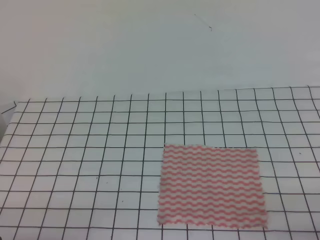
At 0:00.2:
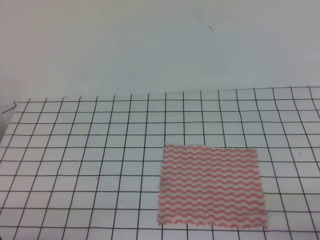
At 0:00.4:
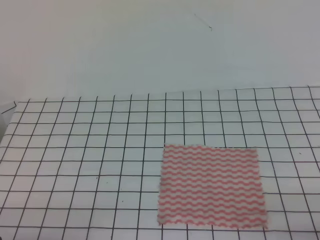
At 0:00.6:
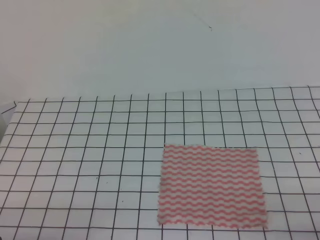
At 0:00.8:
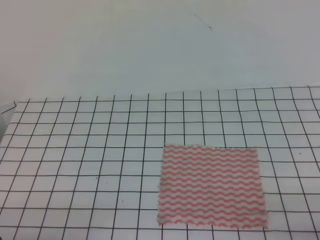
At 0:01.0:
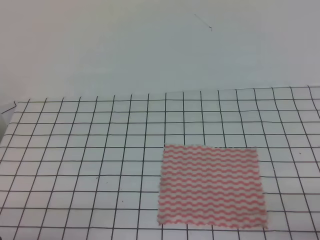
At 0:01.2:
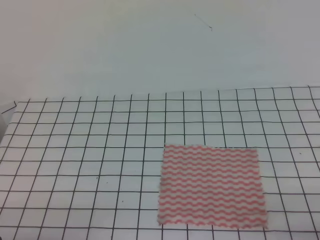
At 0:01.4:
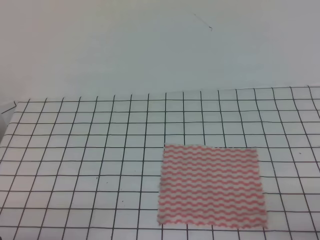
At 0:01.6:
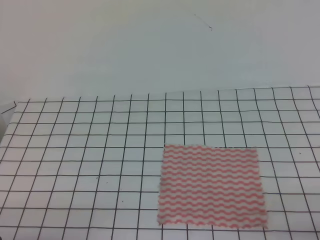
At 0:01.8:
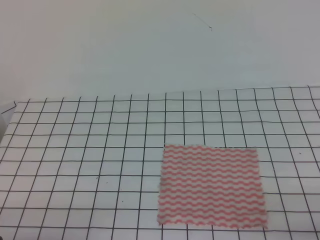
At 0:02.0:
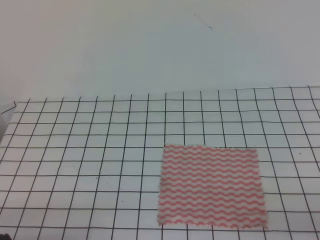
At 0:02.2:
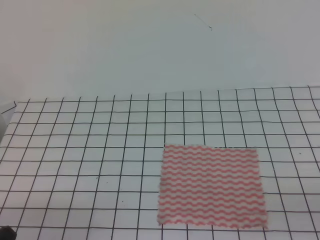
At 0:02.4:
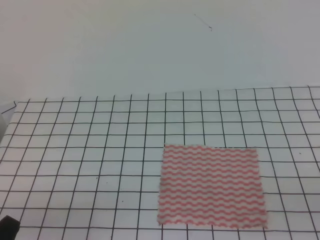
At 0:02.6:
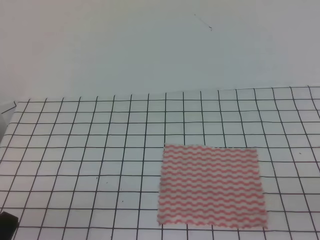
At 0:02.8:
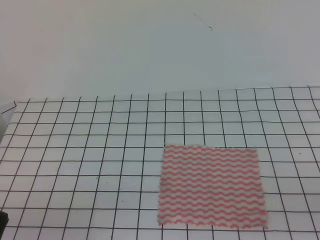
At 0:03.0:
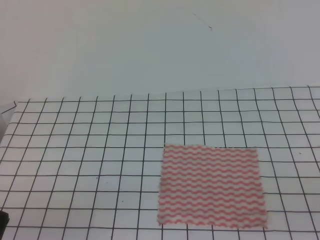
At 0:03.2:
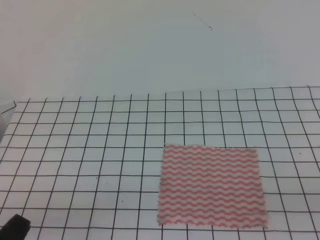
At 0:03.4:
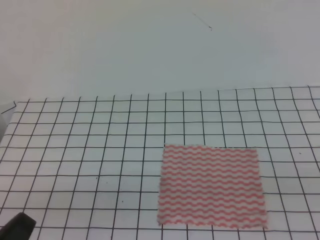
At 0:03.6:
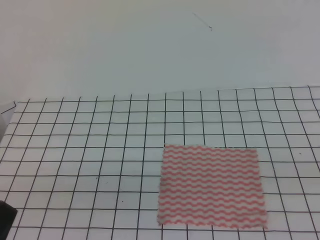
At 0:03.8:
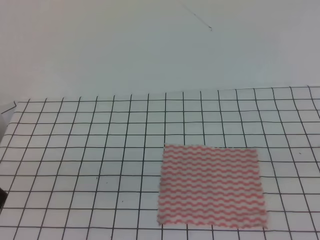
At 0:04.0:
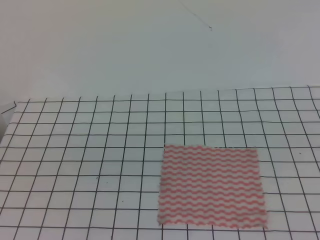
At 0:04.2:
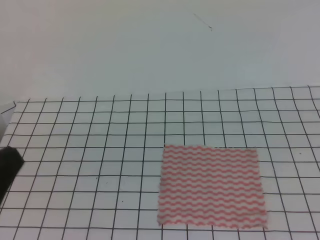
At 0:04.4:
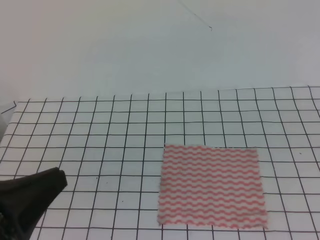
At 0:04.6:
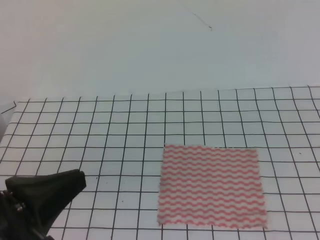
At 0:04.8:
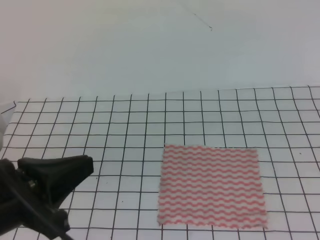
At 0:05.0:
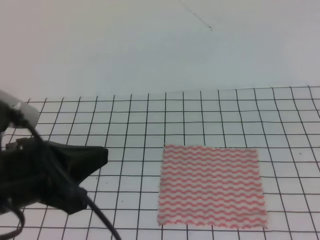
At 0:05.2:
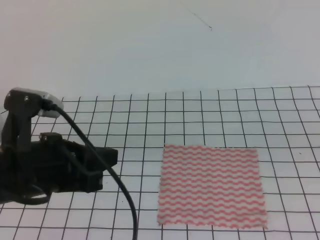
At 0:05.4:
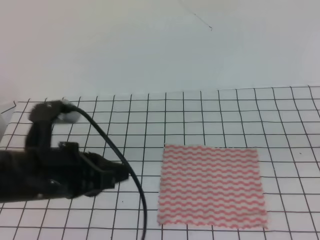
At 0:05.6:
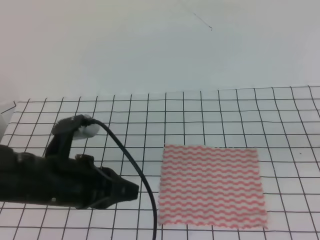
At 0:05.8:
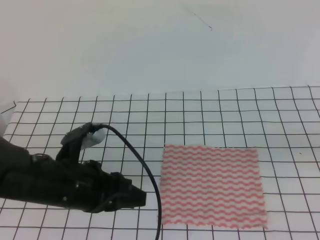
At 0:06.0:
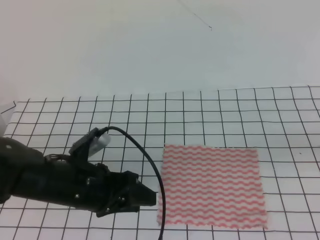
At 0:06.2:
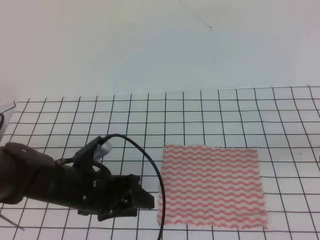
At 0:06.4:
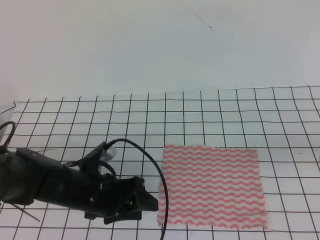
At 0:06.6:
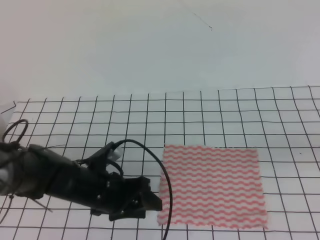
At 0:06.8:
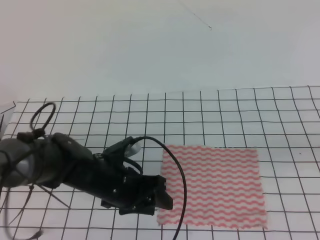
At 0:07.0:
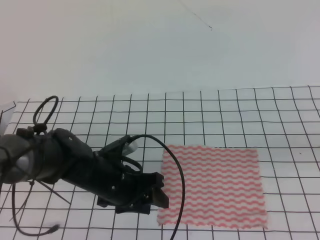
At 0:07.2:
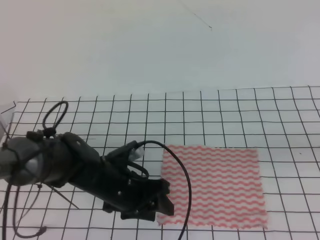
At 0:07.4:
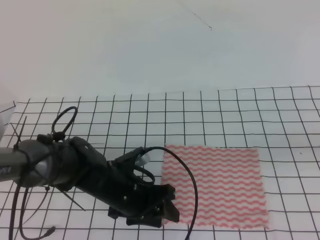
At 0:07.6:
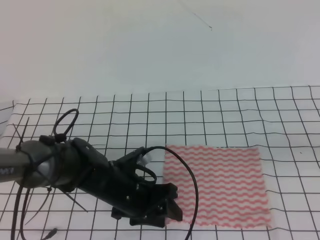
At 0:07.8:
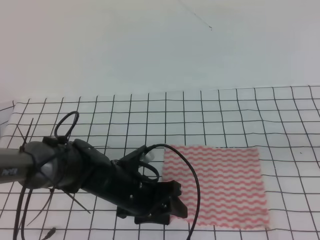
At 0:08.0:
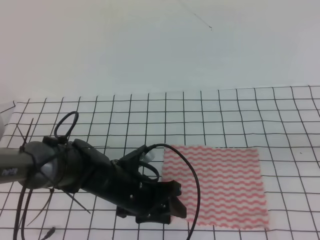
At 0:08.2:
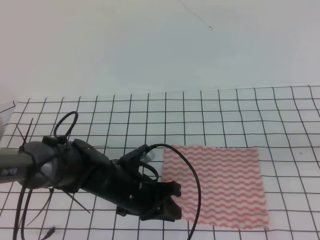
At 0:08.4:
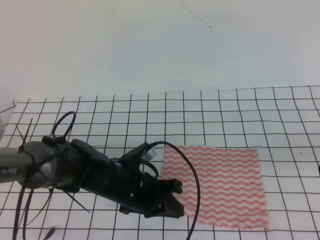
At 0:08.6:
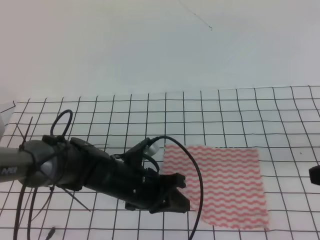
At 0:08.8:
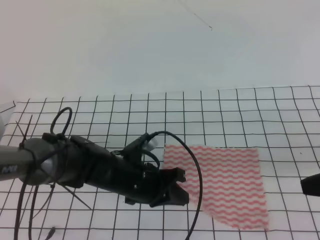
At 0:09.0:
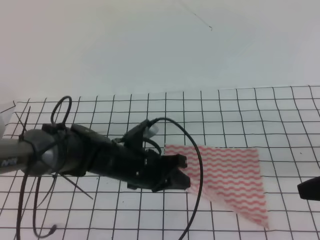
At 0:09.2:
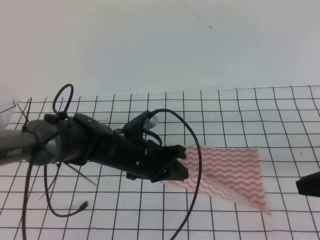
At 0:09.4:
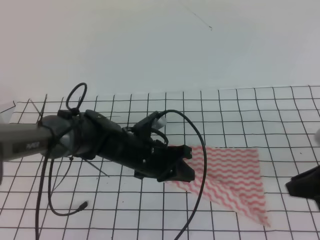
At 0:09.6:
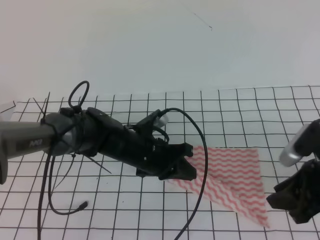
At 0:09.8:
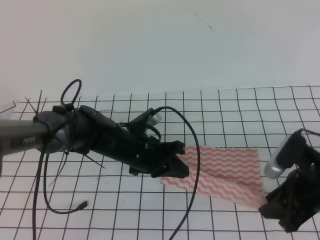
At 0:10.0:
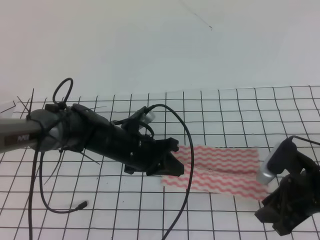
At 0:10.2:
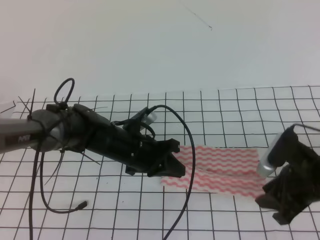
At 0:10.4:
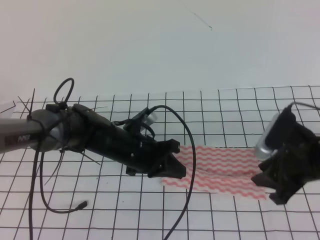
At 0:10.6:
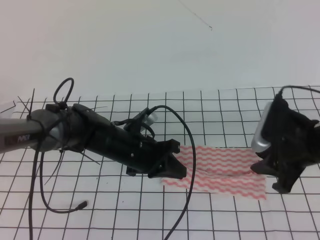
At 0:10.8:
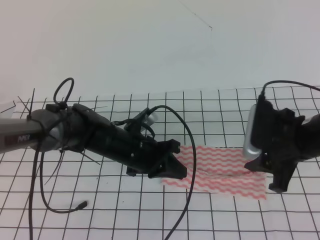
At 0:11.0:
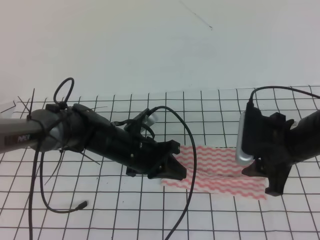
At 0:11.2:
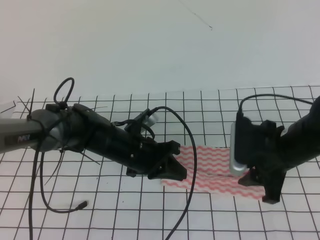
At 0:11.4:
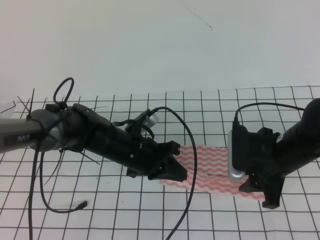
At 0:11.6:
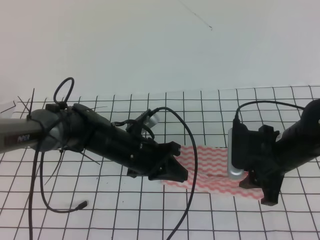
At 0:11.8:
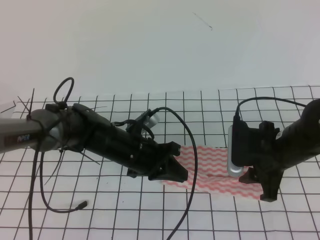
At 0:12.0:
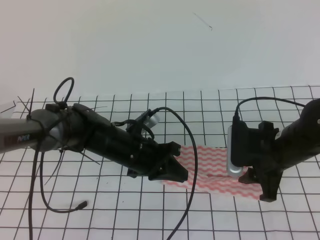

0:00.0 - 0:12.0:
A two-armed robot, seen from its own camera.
0:00.0 - 0:01.6: The two grippers keep their place.
0:03.0 - 0:04.4: The left gripper is displaced upward by approximately 10 cm.
0:04.4 - 0:06.0: The left gripper travels forward, downward and to the right by about 20 cm, and opens up. The right gripper is displaced forward and downward by some 10 cm.
0:06.0 - 0:07.6: The left gripper travels downward and to the right by roughly 10 cm.
0:07.6 - 0:09.0: The left gripper closes up. Meanwhile the right gripper heads downward, covering about 5 cm.
0:09.0 - 0:10.4: The right gripper travels forward, downward and to the left by approximately 10 cm, and opens.
0:10.4 - 0:12.0: The right gripper moves approximately 5 cm.

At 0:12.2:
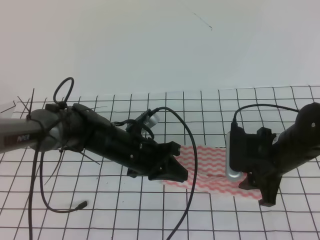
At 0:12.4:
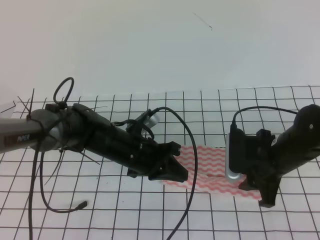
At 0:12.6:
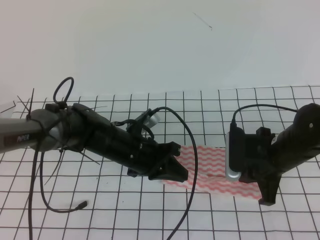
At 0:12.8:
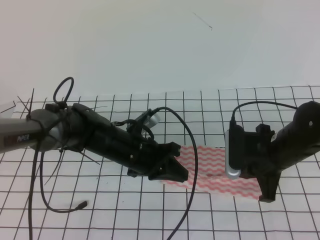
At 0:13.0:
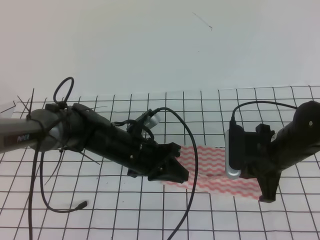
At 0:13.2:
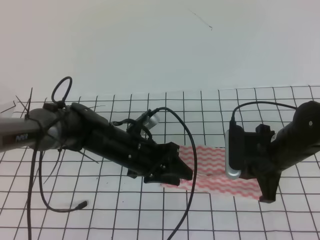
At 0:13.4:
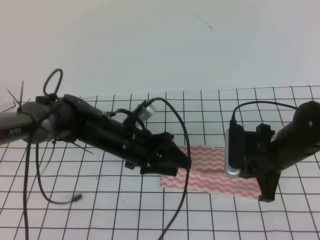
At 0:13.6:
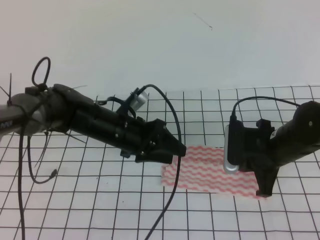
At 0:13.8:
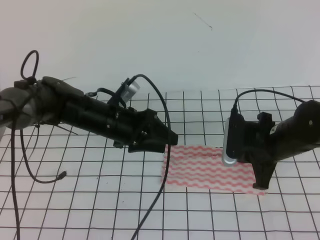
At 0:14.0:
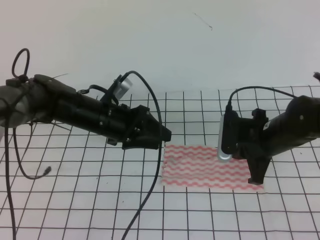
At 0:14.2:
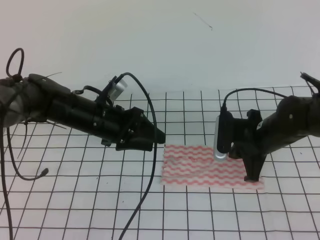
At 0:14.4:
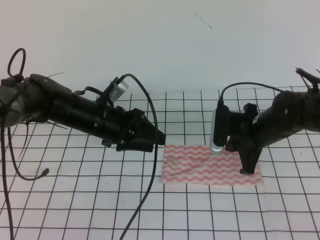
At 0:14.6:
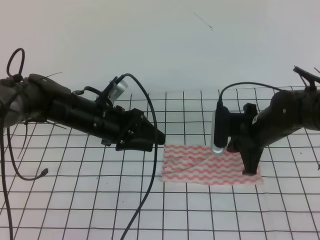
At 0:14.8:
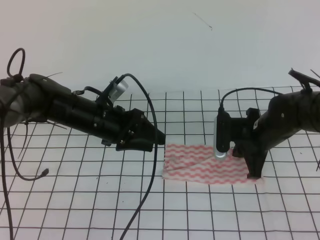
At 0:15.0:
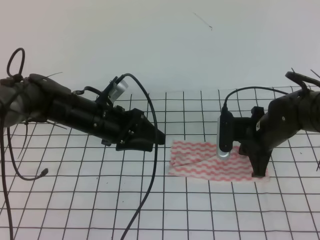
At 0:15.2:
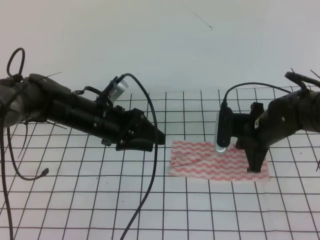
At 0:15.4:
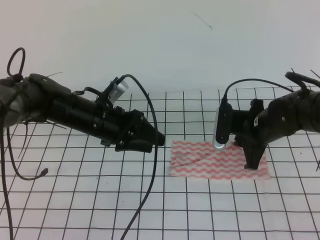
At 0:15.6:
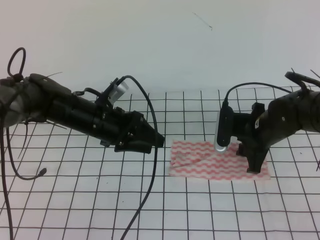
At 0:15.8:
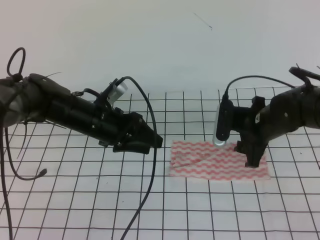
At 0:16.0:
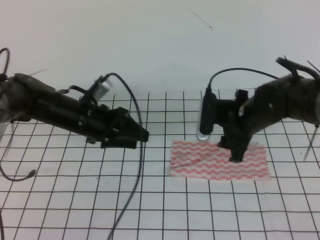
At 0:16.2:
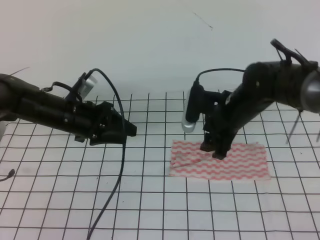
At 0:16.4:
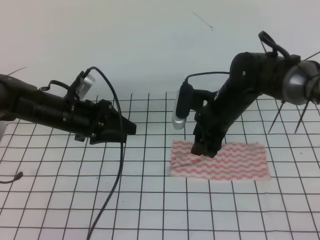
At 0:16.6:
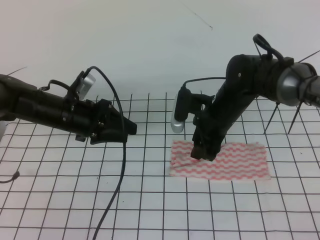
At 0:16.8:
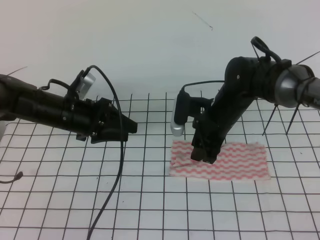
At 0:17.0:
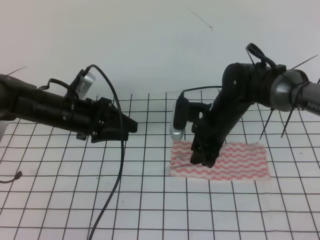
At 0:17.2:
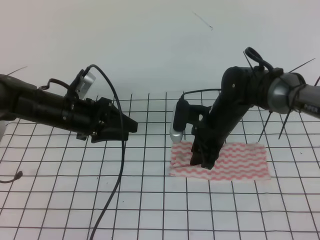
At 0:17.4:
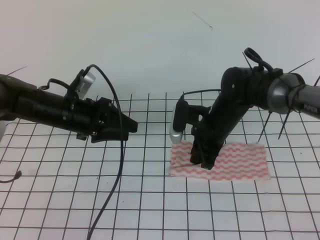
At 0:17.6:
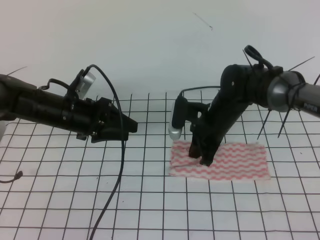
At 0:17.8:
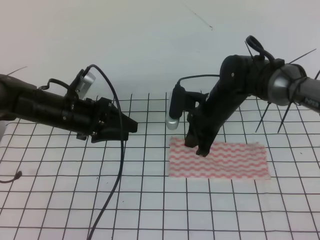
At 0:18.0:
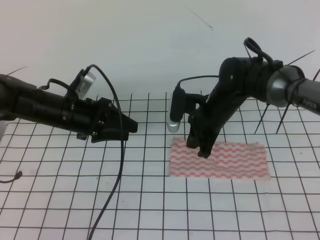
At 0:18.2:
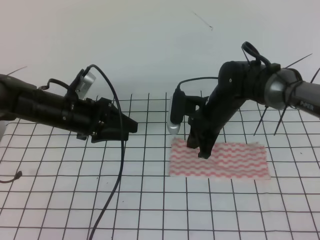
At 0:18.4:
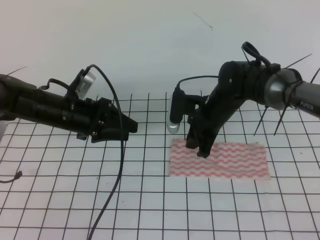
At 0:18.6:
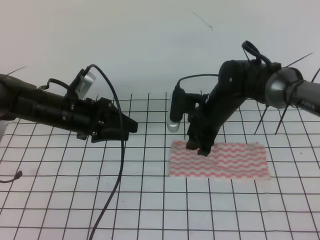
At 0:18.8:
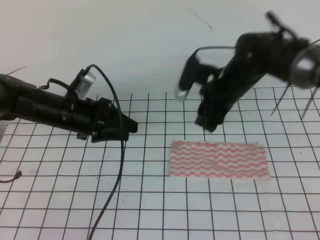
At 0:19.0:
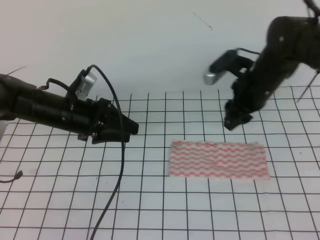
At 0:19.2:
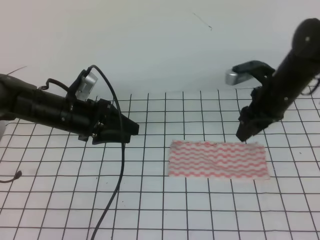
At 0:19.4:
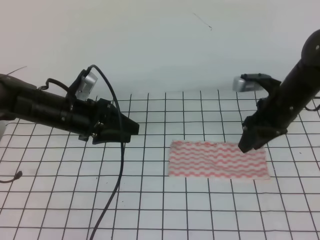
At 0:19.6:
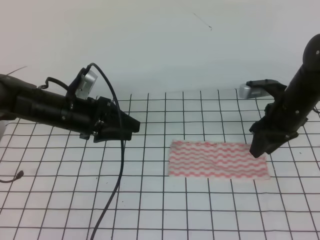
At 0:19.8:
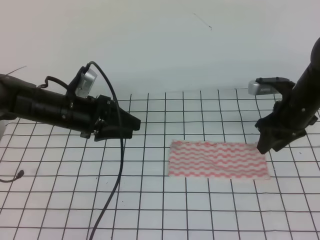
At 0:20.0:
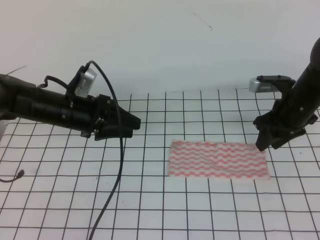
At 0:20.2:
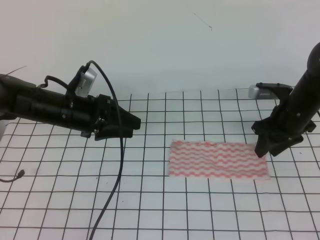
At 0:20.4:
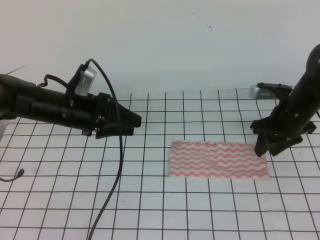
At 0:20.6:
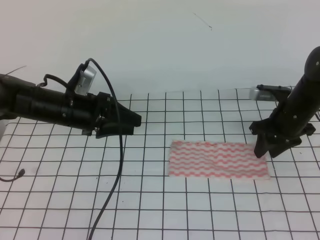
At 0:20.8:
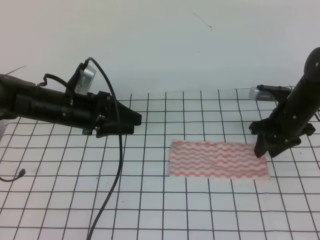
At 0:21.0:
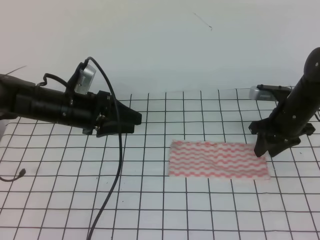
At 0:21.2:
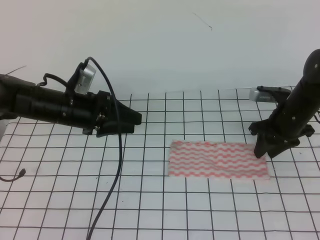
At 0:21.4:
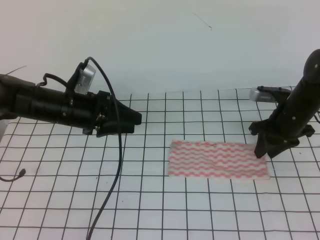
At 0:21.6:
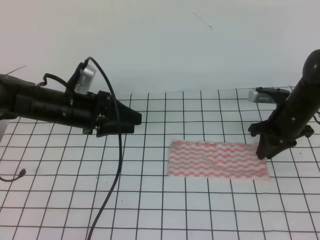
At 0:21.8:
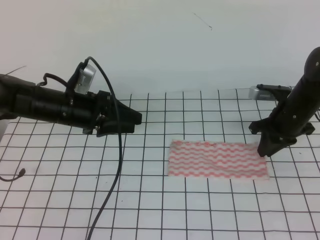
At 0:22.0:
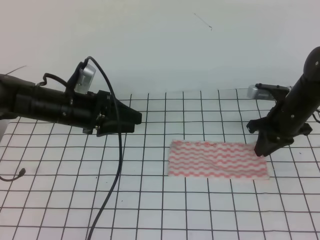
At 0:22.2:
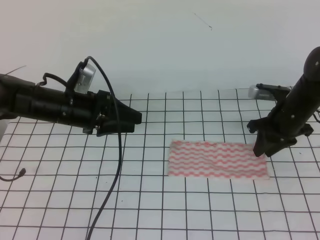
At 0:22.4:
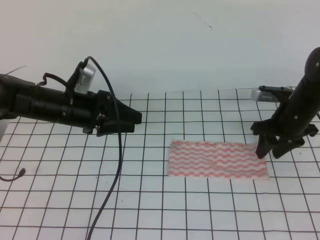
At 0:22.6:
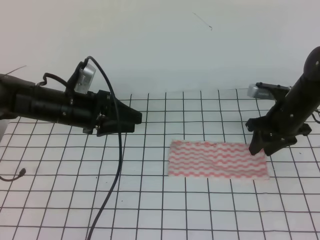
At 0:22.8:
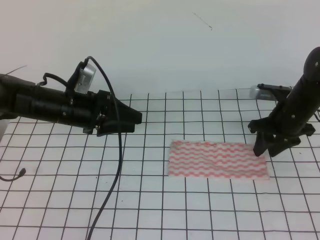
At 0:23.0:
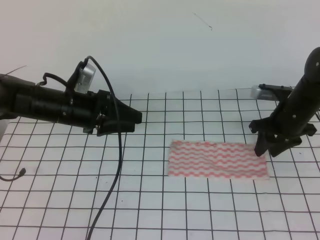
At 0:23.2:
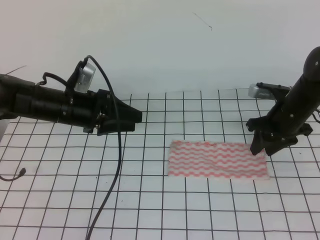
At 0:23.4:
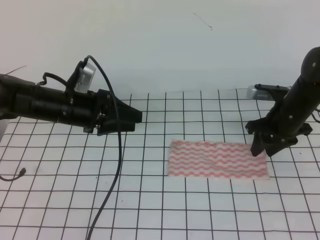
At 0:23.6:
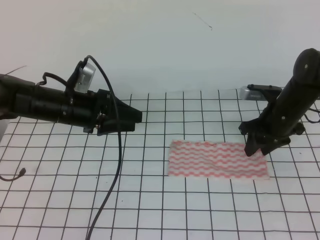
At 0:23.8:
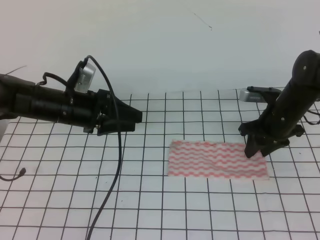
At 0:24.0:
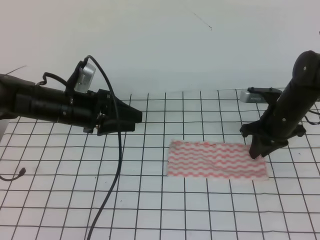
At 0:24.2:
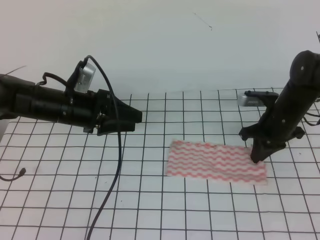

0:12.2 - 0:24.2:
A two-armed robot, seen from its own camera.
0:12.2 - 0:13.8: The left gripper changes place by roughly 5 cm, and opens its fingers. The right gripper closes.
0:13.8 - 0:15.2: The right gripper ends up about 5 cm from where it was.
0:15.2 - 0:16.6: Both grippers move to the left, roughly 5 cm. The right gripper opens up.
0:16.6 - 0:18.2: The right gripper closes its fingers.
0:18.2 - 0:19.8: The right gripper travels to the right by roughly 15 cm, and opens up.
0:19.8 - 0:21.2: The grippers move only a little.
0:21.2 - 0:22.6: The right gripper closes, then reopens.
0:22.6 - 0:24.2: The right gripper closes its fingers.
